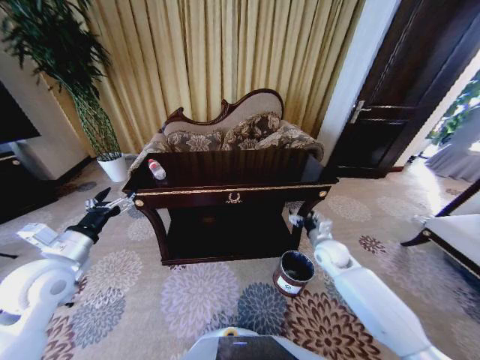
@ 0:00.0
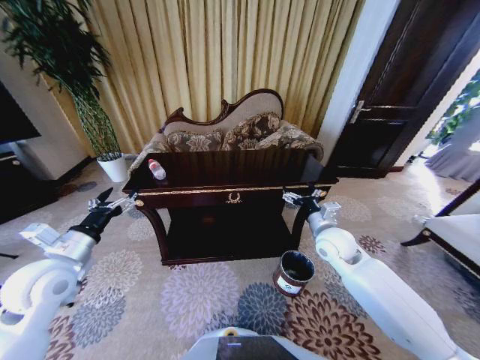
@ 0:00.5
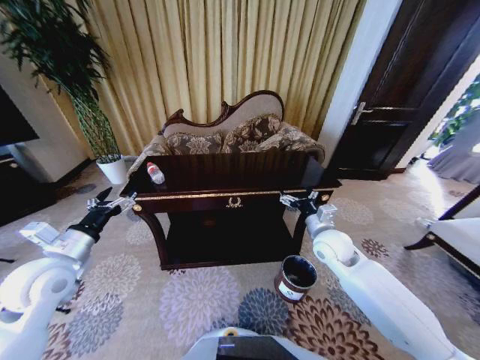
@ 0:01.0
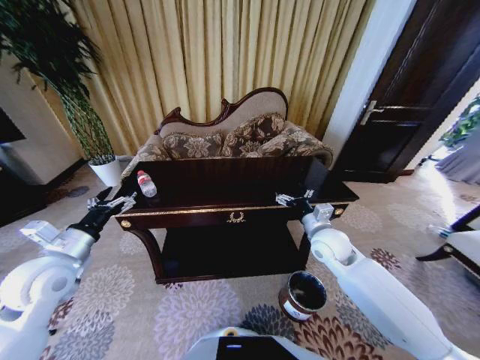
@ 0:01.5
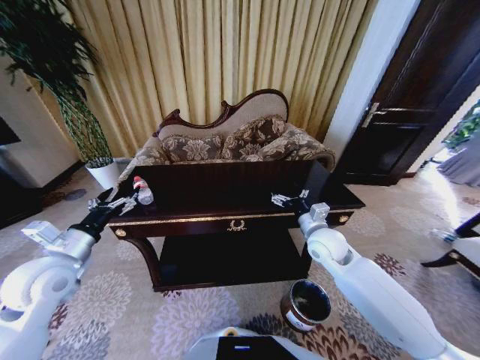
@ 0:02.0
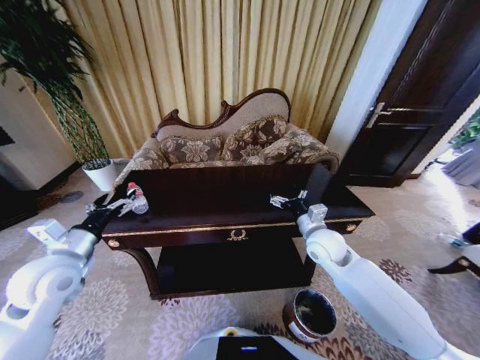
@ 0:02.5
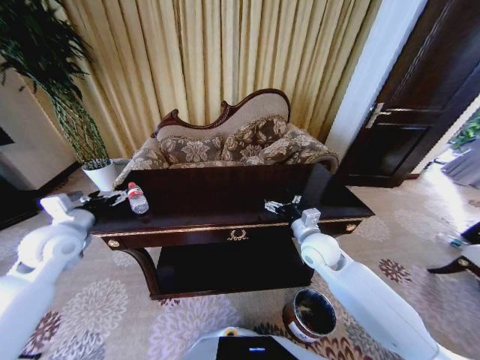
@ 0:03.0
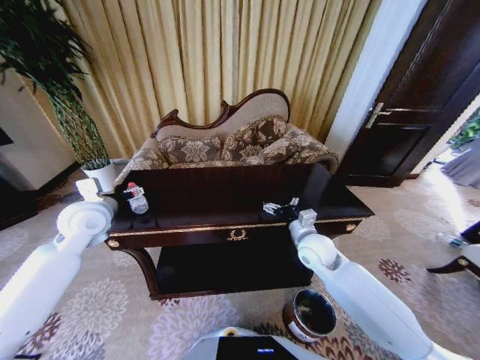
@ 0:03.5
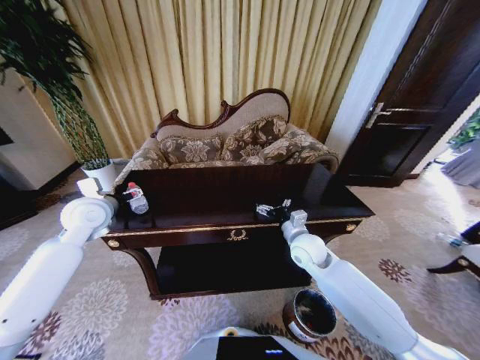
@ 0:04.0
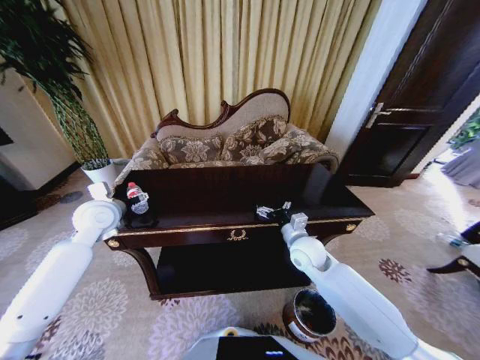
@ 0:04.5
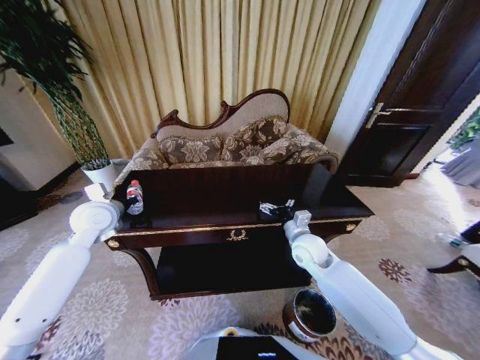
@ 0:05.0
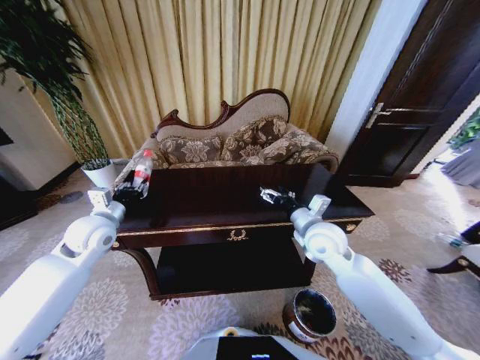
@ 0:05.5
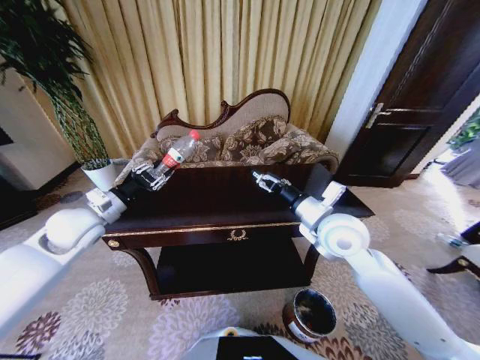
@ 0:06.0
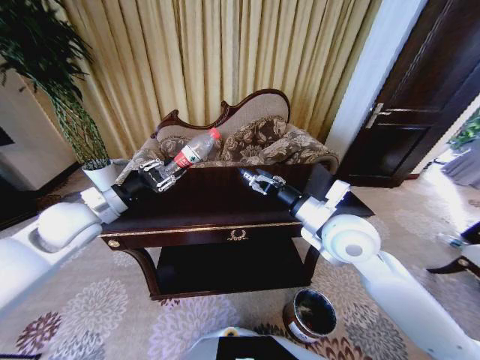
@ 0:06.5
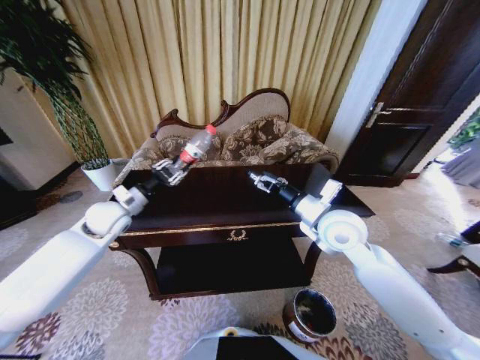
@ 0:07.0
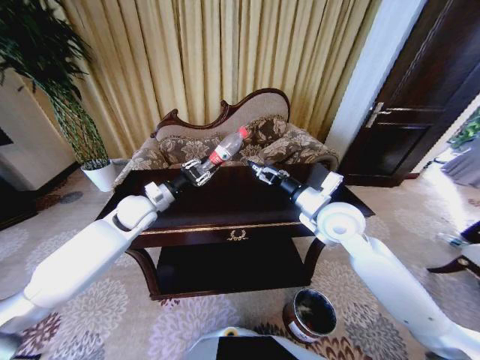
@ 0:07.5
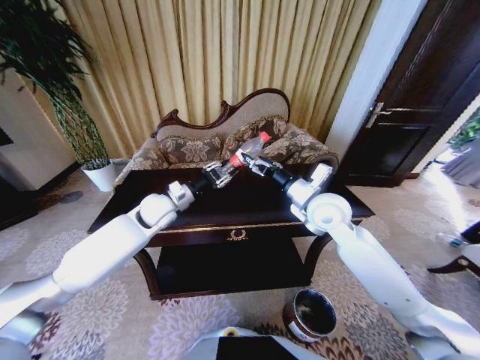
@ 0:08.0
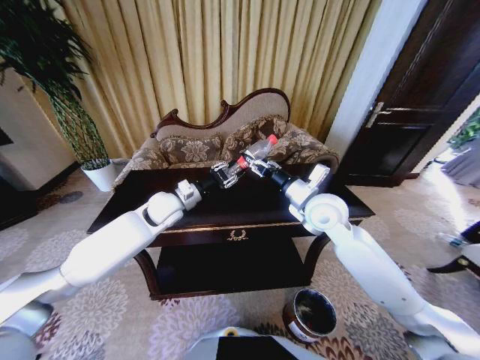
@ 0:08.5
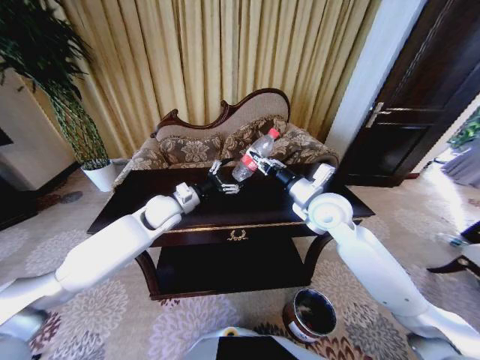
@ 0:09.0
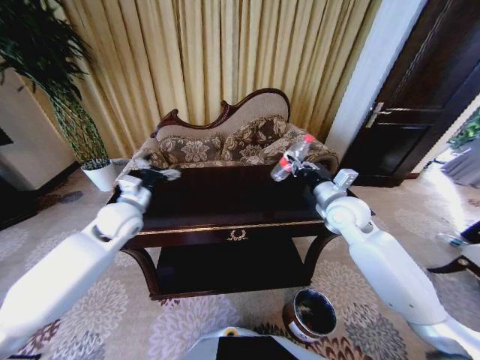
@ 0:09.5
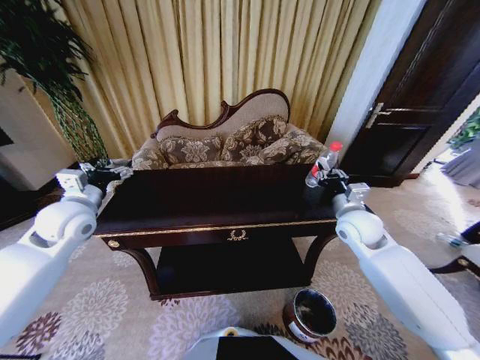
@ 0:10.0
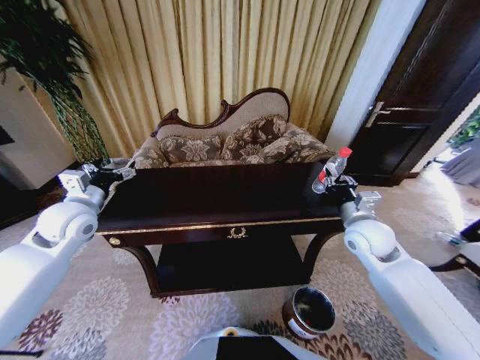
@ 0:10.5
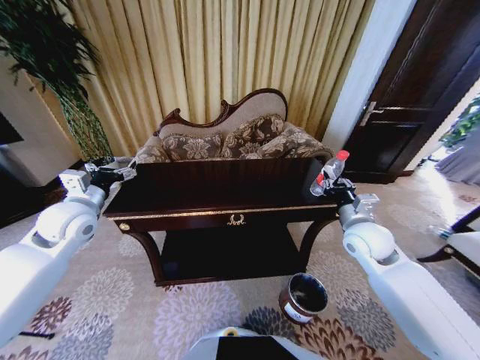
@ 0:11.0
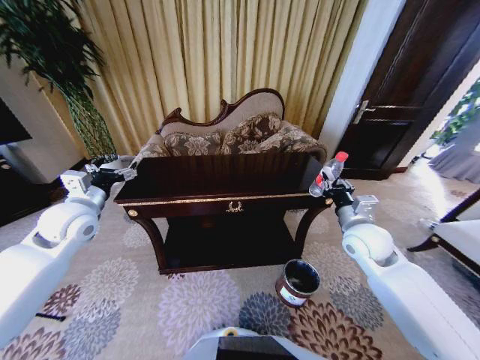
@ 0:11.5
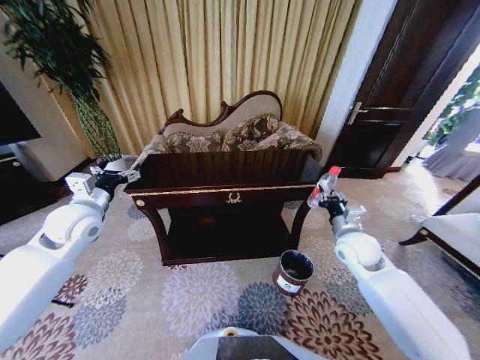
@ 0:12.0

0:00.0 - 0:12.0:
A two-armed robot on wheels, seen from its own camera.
Task of the whole recording: Move to the front of the table and place the trash on the table into the trash bin.
0:00.0 - 0:02.0: The right gripper moves upward and to the left, about 15 cm.
0:02.0 - 0:04.0: The right gripper changes place by roughly 5 cm. Meanwhile the left gripper travels forward by some 15 cm.
0:04.0 - 0:06.0: The left gripper closes; the right gripper goes some 15 cm upward.
0:06.0 - 0:08.0: The left gripper shifts about 20 cm to the right and forward; the right gripper heads forward, covering roughly 5 cm.
0:08.0 - 0:10.0: The right gripper moves to the right and downward, some 10 cm, and closes up. Meanwhile the left gripper moves to the left and backward, some 20 cm, and opens its fingers.
0:10.0 - 0:12.0: The right gripper goes about 5 cm downward.

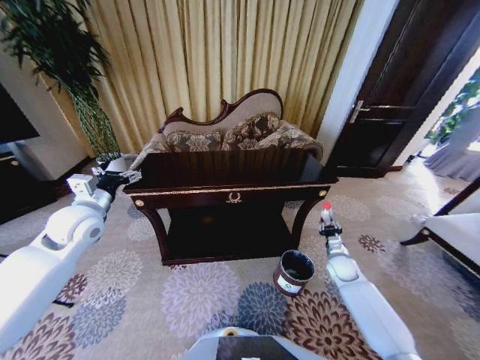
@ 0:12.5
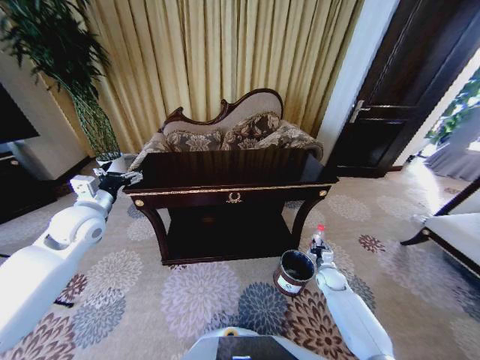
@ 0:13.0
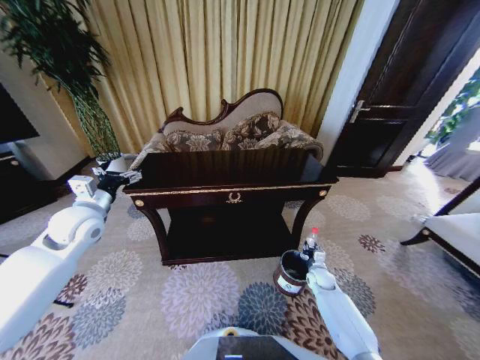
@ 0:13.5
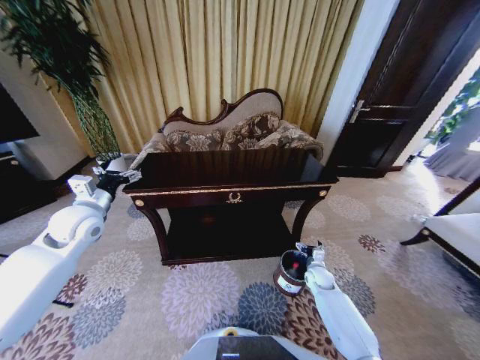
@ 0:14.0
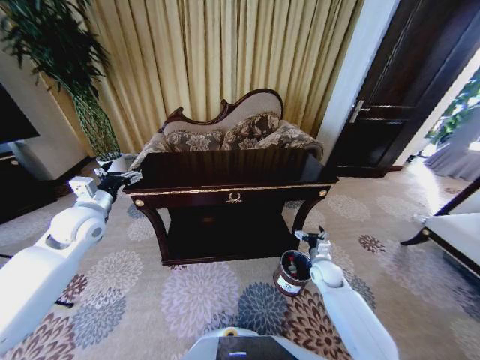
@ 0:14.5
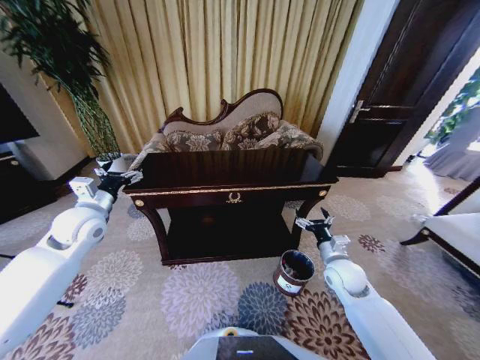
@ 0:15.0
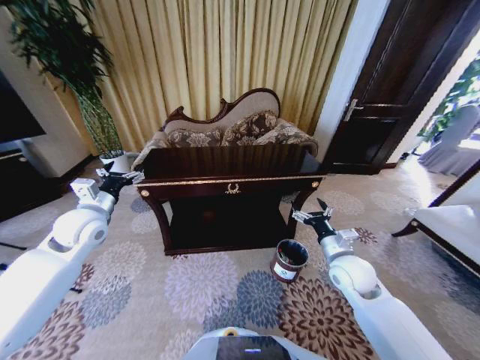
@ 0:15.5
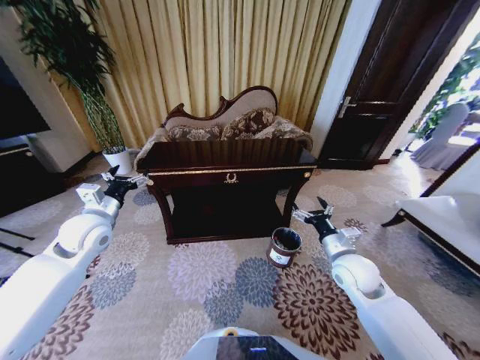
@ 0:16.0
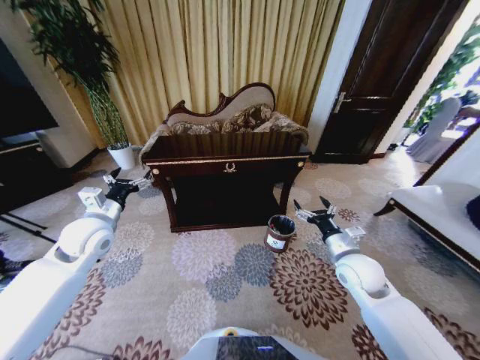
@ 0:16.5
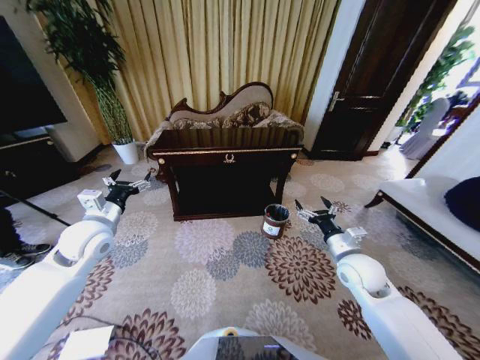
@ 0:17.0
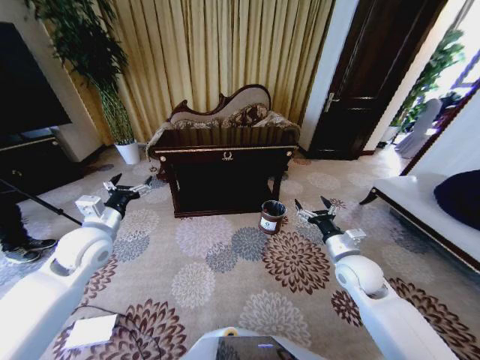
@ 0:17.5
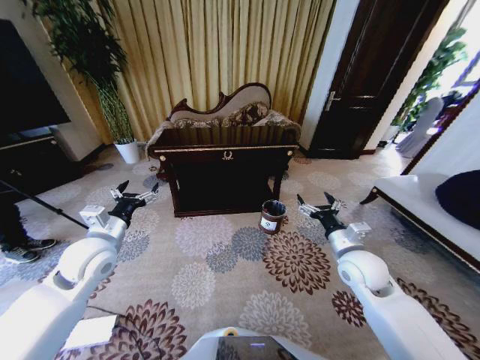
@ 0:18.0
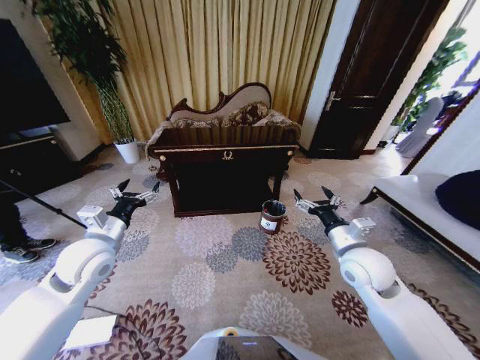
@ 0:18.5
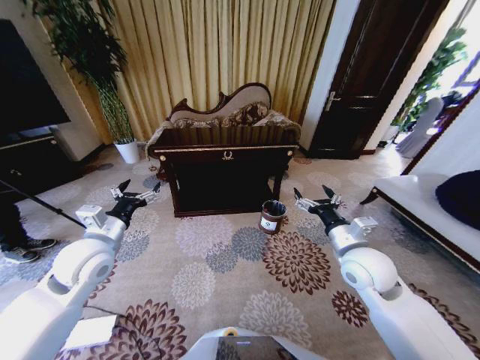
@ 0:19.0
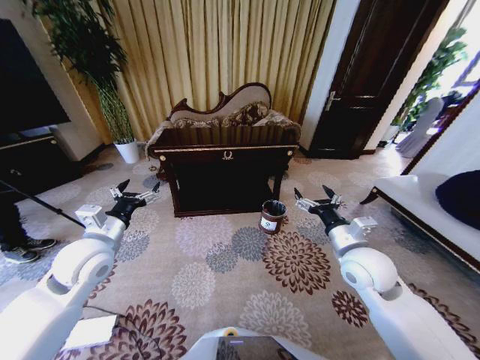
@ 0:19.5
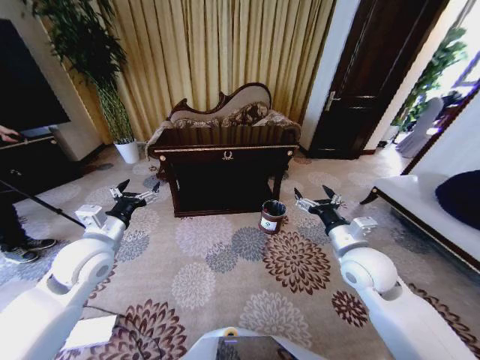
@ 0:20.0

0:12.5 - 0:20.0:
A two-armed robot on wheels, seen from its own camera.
Task of the whole recording: Move to the front of the table and place the trash on the table into the trash bin.
0:12.5 - 0:14.5: The right gripper shifts about 5 cm to the left, travels downward and back again, approximately 10 cm each way, and opens.
0:14.5 - 0:16.5: The right gripper goes about 15 cm upward.
0:16.5 - 0:18.0: The left gripper ends up roughly 5 cm from where it was.
0:18.0 - 0:20.0: The grippers move only a little.
